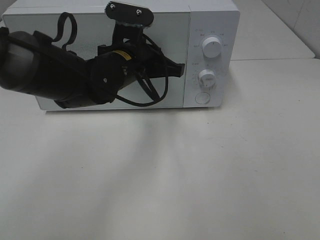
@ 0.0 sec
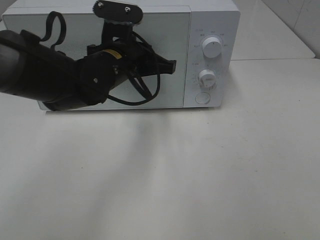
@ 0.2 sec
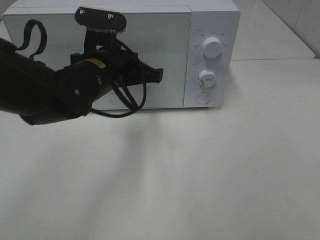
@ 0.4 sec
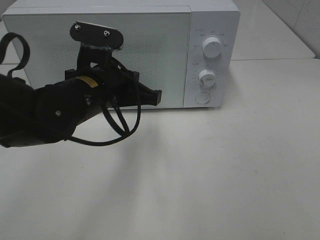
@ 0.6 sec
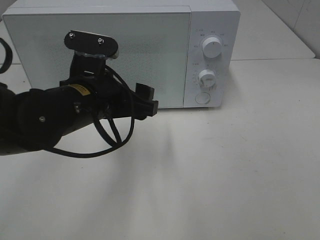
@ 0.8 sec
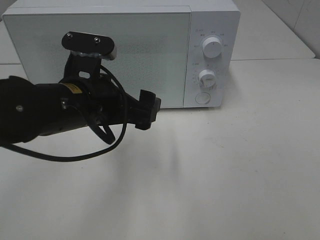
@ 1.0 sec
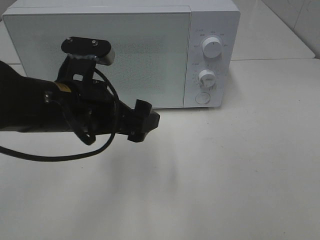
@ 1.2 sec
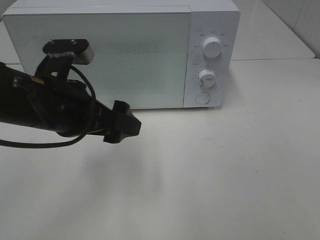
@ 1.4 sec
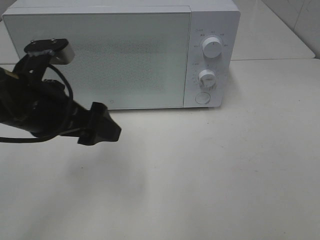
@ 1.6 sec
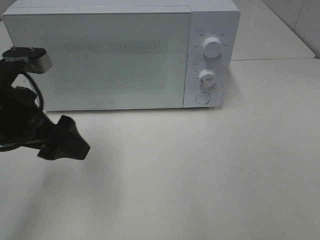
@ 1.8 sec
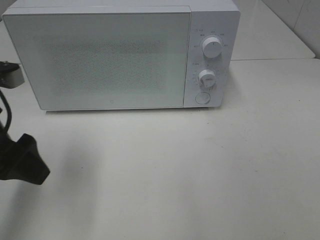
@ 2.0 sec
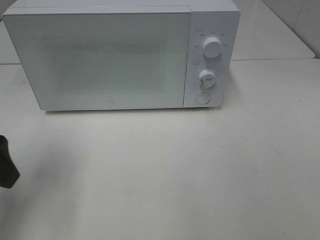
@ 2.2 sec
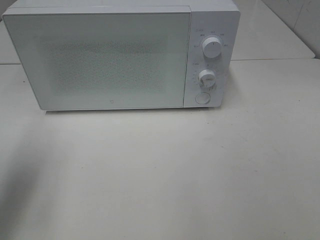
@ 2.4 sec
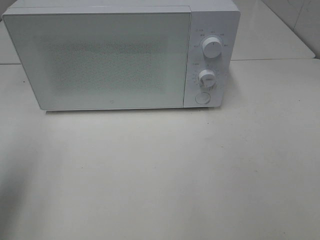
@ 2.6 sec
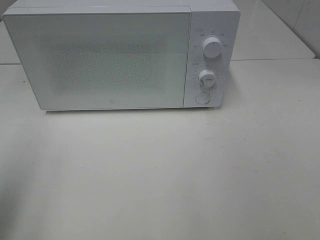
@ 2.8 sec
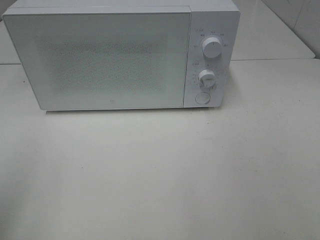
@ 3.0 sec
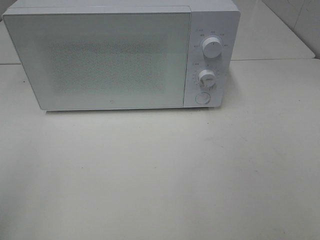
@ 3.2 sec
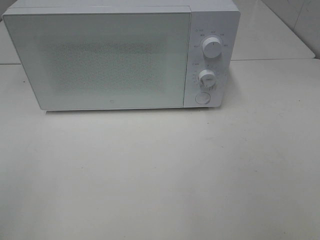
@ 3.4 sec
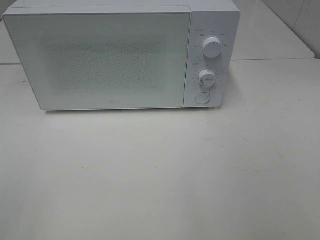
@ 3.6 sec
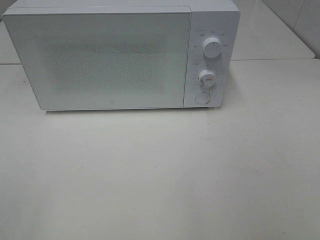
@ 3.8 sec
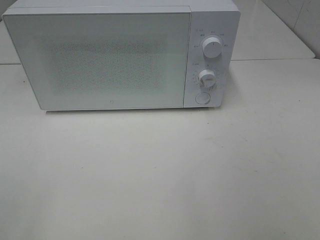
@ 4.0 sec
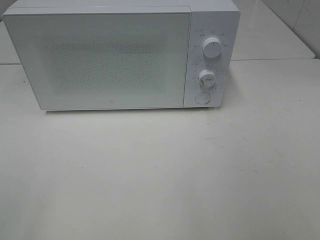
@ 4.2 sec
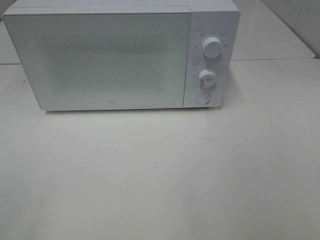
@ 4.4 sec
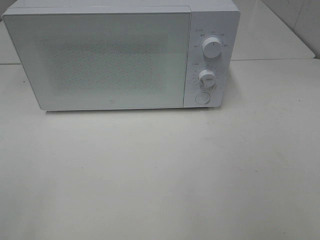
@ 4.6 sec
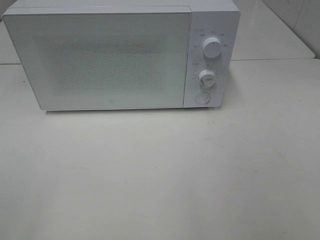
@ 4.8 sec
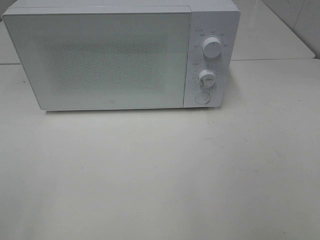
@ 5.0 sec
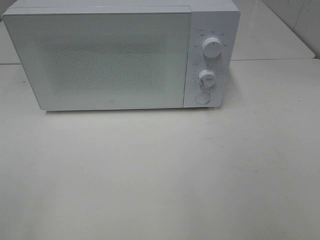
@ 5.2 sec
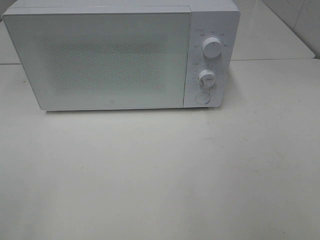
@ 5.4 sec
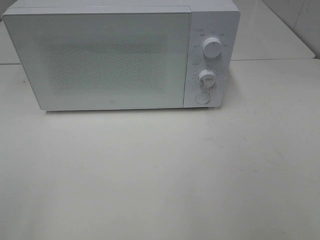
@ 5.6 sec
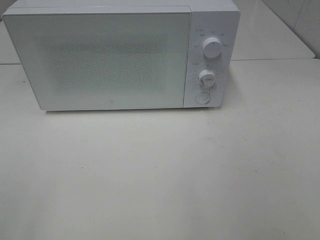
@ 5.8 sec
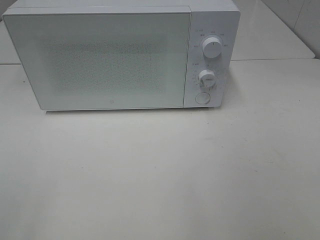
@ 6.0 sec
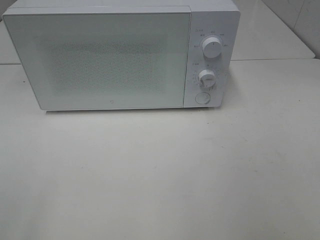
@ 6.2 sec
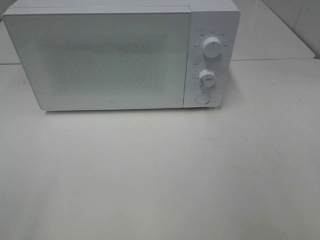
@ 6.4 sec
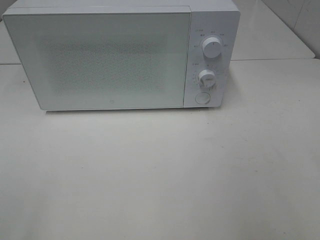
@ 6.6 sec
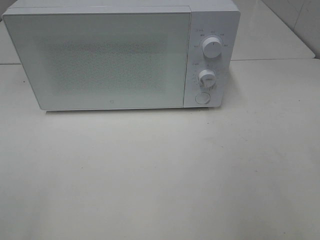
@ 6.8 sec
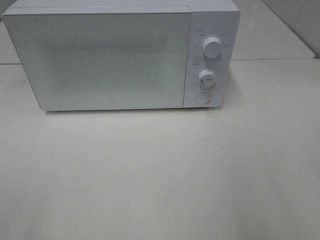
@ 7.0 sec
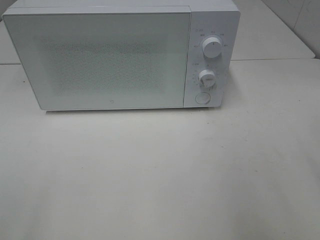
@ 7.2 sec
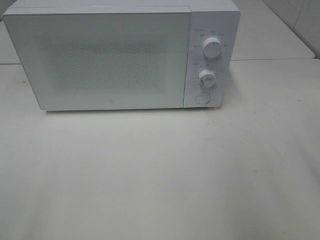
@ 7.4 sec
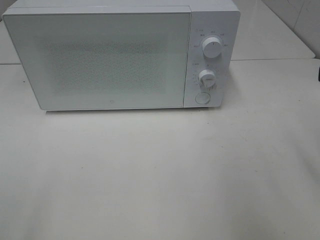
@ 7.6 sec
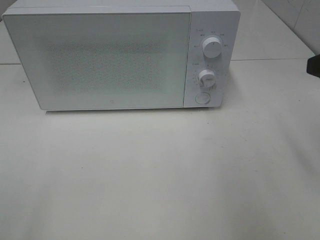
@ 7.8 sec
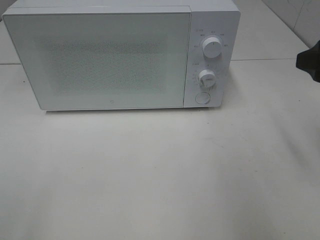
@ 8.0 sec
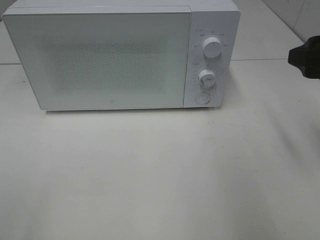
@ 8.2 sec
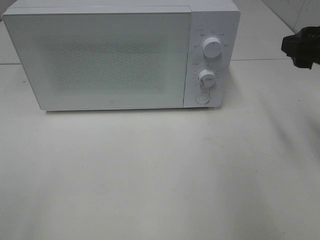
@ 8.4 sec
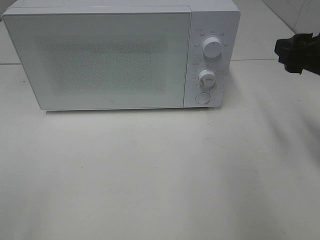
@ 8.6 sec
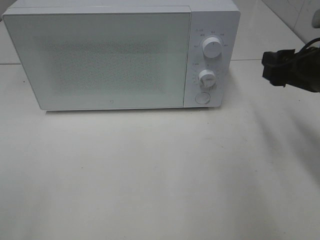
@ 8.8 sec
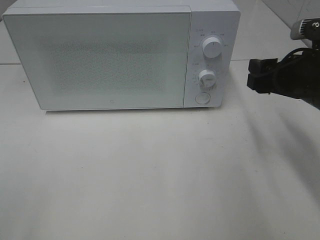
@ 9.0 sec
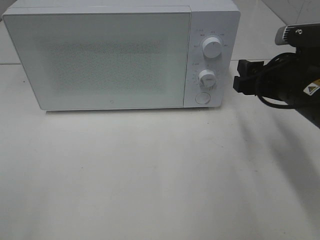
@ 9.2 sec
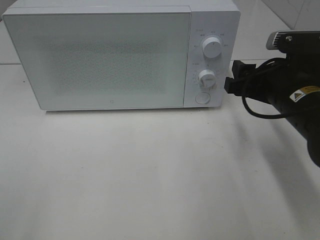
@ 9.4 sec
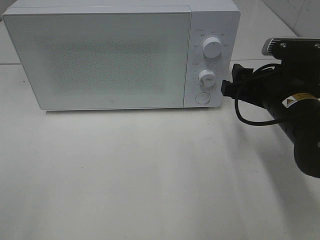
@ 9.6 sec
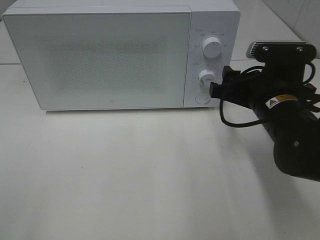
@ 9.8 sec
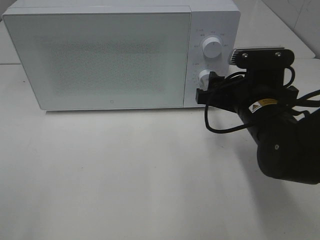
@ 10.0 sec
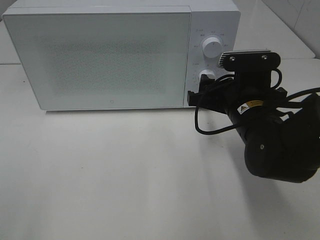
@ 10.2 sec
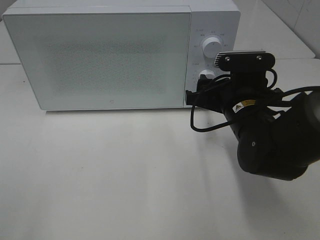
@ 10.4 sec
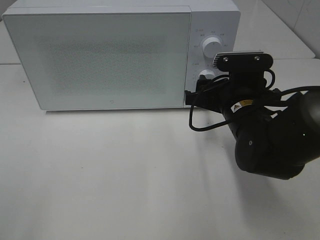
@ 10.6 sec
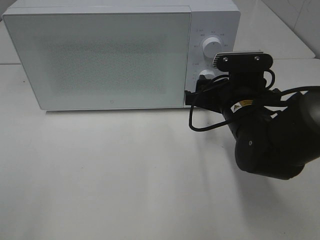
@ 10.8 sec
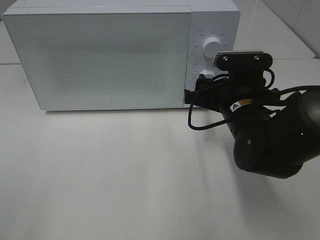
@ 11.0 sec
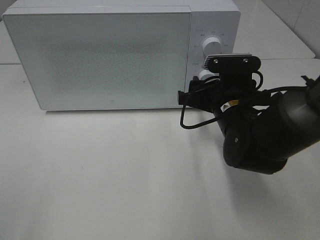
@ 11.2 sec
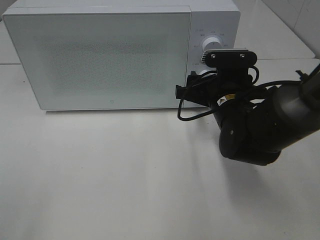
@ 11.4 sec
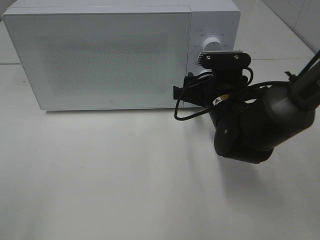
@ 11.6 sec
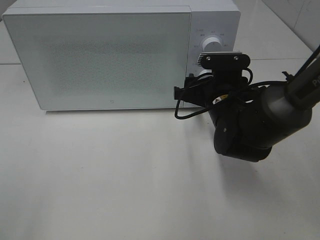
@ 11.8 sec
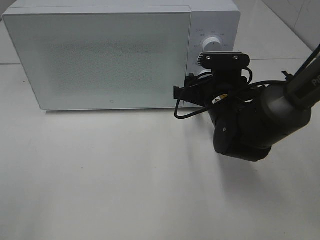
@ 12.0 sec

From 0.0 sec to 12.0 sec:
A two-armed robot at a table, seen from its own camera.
Task of the whole recording: Heat Sandwich.
From 0.0 sec to 1.6 sec: The left gripper shifts approximately 15 cm backward and to the left, and opens its fingers.
From 1.6 sec to 3.0 sec: The left gripper moves backward, to the left and upward, roughly 25 cm.
From 4.4 sec to 6.0 sec: Both grippers stay put.
From 7.6 sec to 9.0 sec: The right gripper shifts roughly 10 cm downward and forward.
From 9.0 sec to 10.4 sec: The right gripper shifts about 10 cm to the left and downward.
From 10.4 sec to 12.0 sec: The right gripper moves approximately 5 cm.

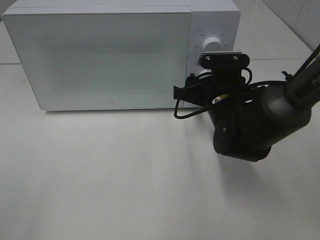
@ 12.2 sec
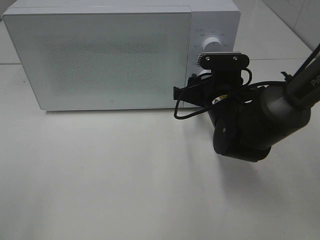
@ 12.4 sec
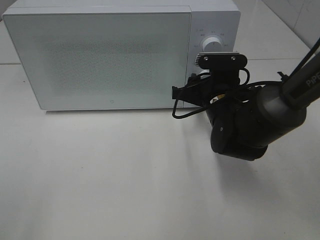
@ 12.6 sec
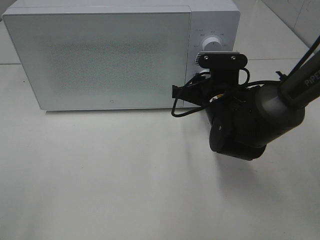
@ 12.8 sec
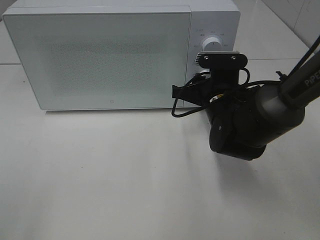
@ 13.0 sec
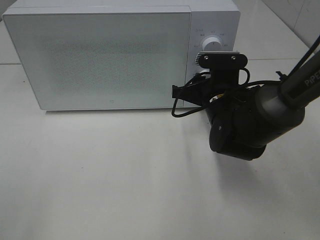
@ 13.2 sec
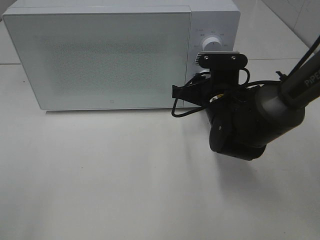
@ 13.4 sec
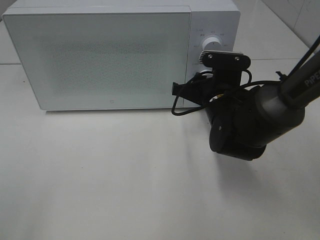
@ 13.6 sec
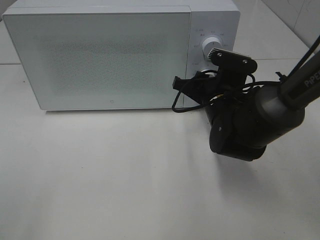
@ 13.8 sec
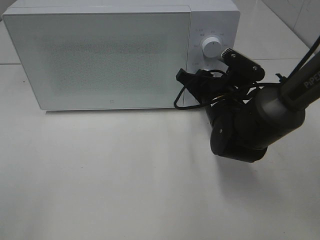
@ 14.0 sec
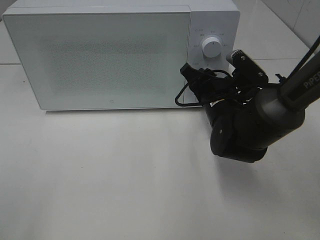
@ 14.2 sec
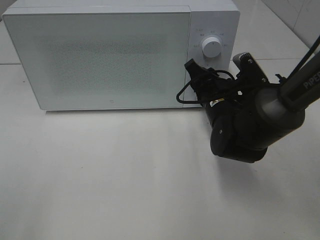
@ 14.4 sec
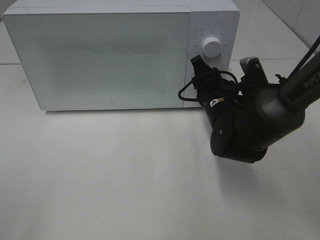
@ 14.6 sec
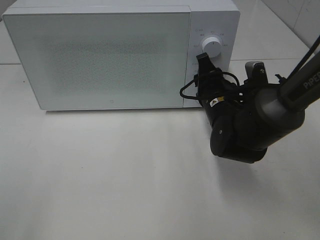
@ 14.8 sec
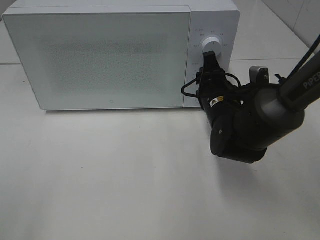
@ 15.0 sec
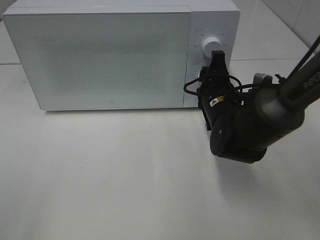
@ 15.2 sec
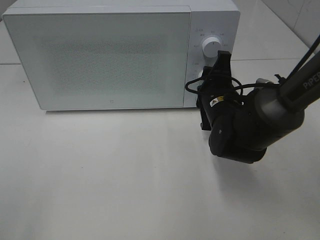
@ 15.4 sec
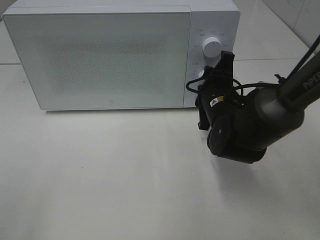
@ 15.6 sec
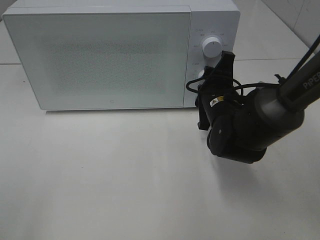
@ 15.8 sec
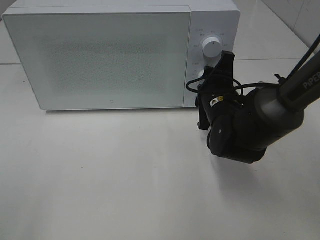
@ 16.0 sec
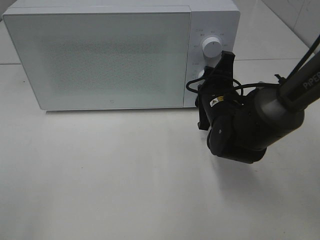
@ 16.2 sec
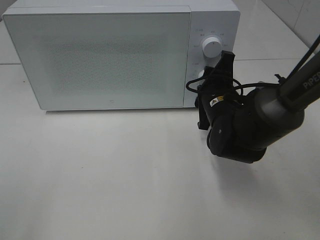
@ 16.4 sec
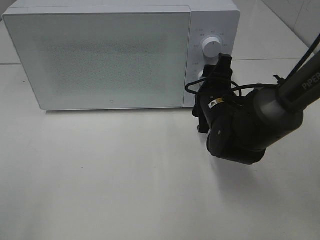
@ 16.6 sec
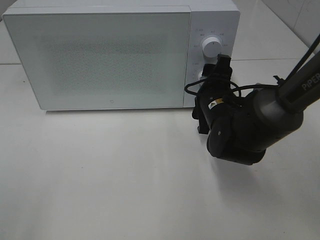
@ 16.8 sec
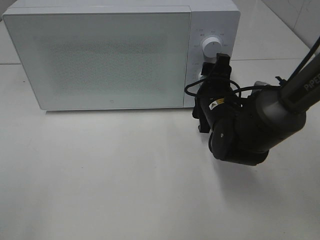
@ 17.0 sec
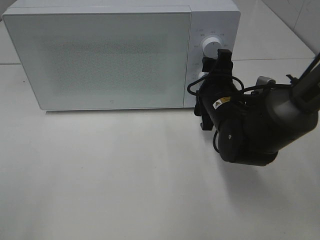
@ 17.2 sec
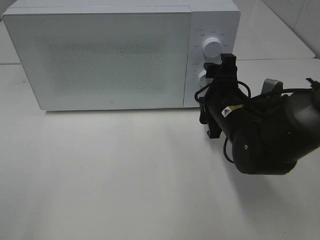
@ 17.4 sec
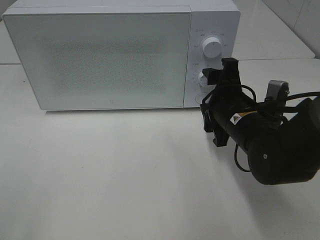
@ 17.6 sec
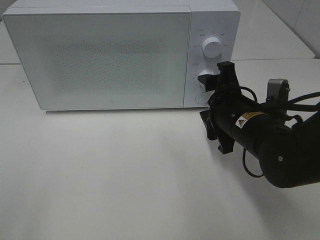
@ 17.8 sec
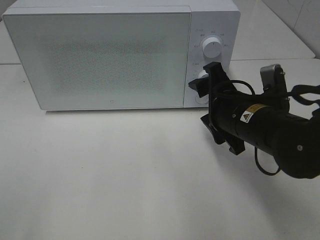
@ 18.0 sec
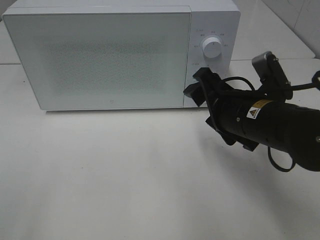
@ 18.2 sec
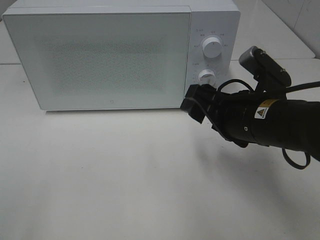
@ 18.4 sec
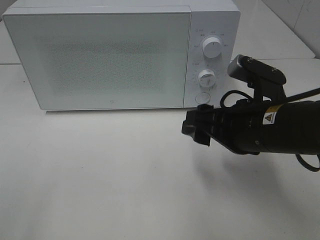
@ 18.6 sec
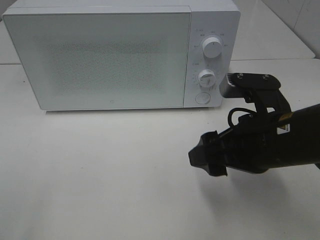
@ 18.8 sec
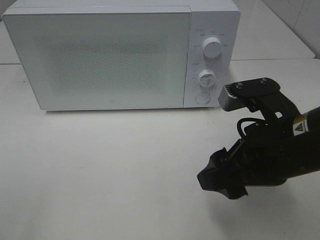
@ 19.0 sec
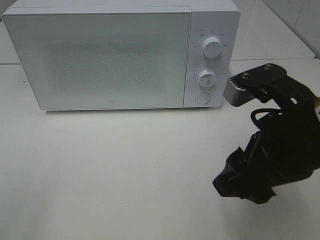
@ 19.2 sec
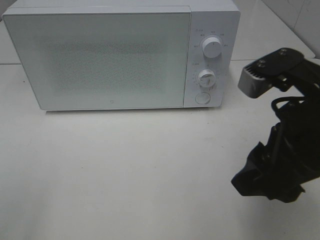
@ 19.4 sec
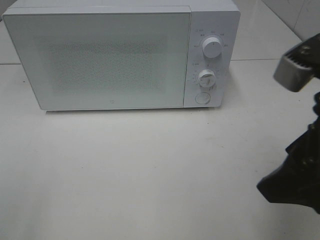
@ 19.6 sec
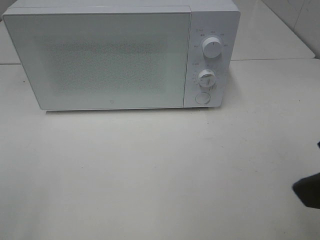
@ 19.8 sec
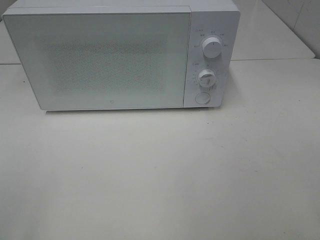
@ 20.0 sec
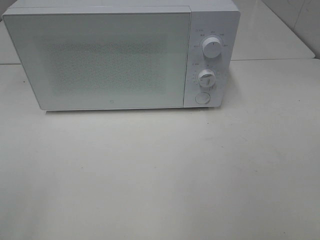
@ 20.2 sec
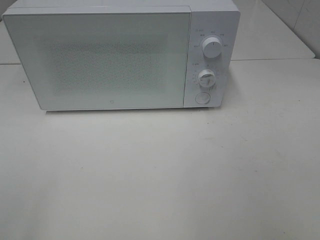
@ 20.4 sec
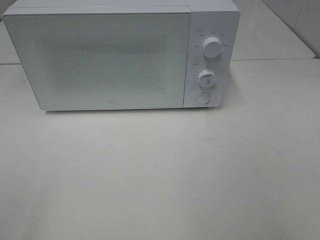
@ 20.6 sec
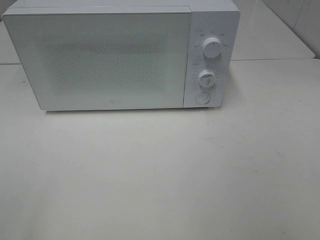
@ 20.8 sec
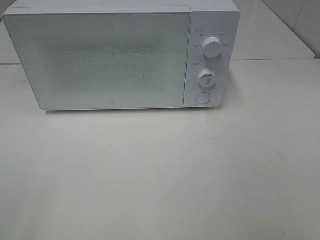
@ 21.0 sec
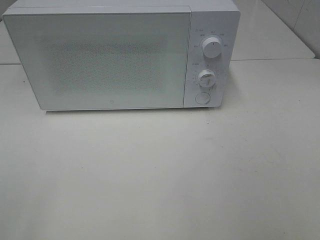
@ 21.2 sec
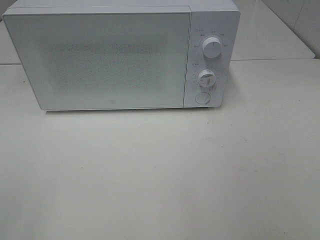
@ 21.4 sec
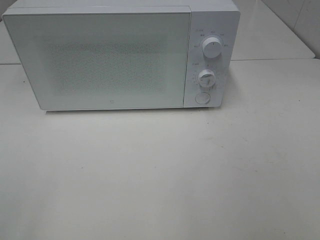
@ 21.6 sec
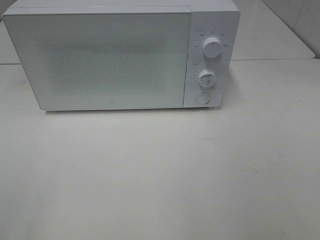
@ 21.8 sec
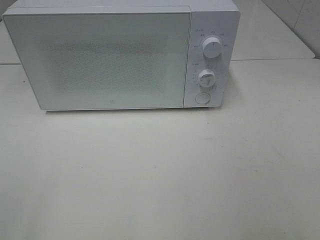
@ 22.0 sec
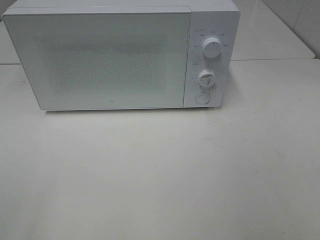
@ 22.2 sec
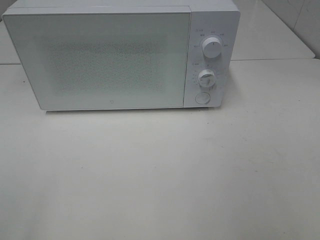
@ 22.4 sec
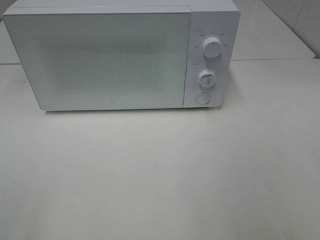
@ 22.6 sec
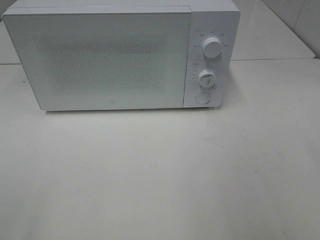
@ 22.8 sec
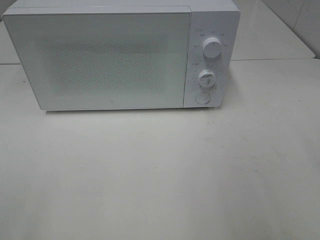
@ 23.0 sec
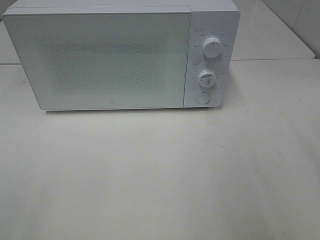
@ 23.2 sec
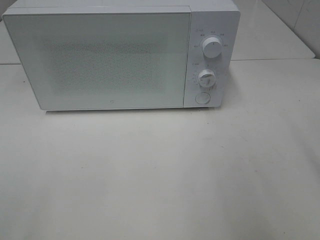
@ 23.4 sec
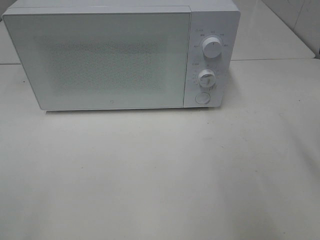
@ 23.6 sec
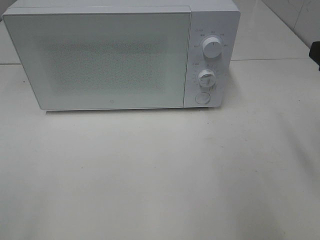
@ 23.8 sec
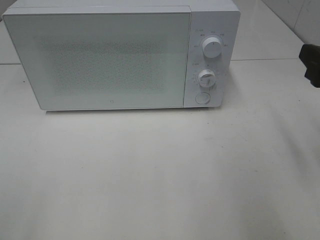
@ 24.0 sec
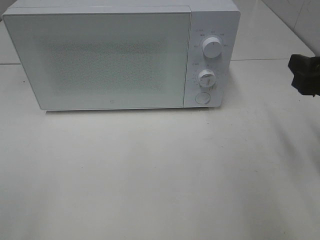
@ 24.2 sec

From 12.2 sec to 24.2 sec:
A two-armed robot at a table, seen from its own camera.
Task of the whole recording: Heat Sandwich.
Step, from 12.2 sec to 16.8 sec: Right hand: twist timer button.
From 12.2 sec to 13.8 sec: The grippers make only small movements.
From 15.2 sec to 16.6 sec: The grippers make only small movements.
From 16.6 sec to 18.2 sec: The right gripper is displaced backward and upward by about 10 cm.
From 18.2 sec to 19.8 sec: The right gripper moves backward, upward and to the right, some 20 cm.
From 19.8 sec to 21.2 sec: The right gripper goes roughly 15 cm backward and to the right.
From 22.6 sec to 24.2 sec: The right gripper goes roughly 20 cm forward and downward.
